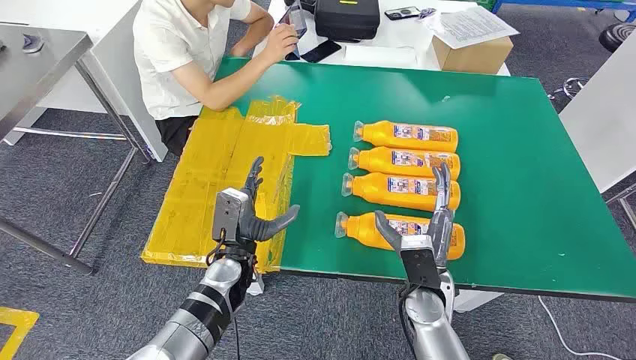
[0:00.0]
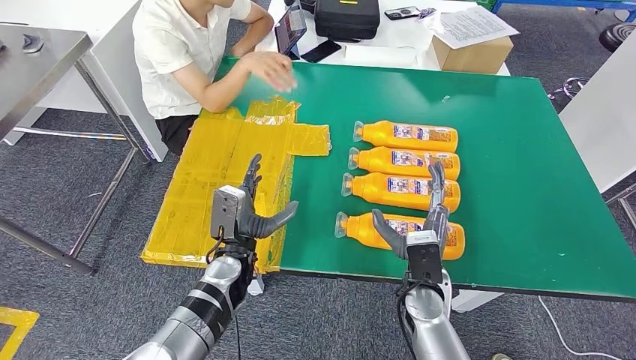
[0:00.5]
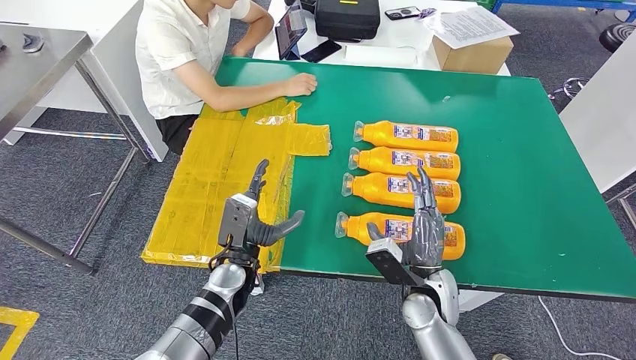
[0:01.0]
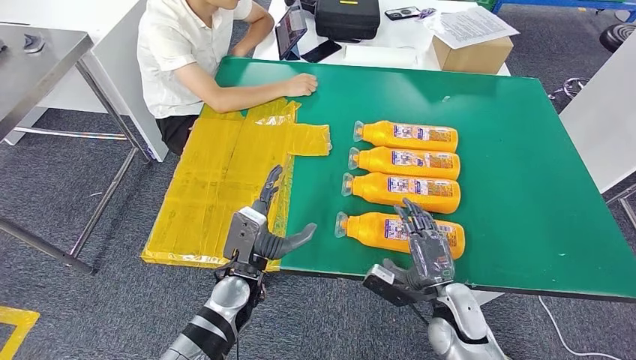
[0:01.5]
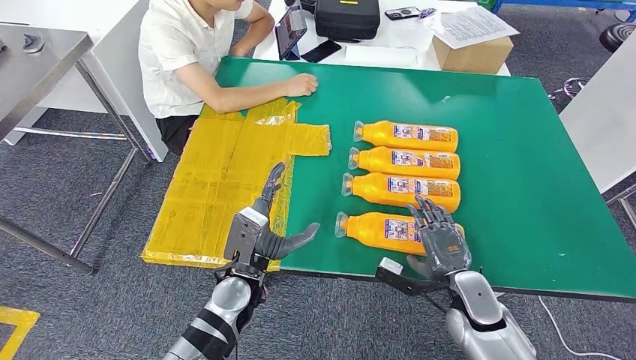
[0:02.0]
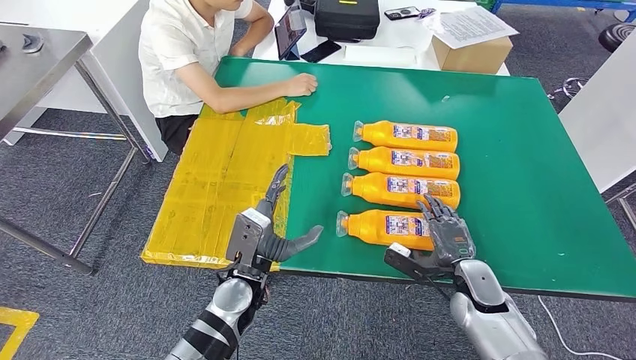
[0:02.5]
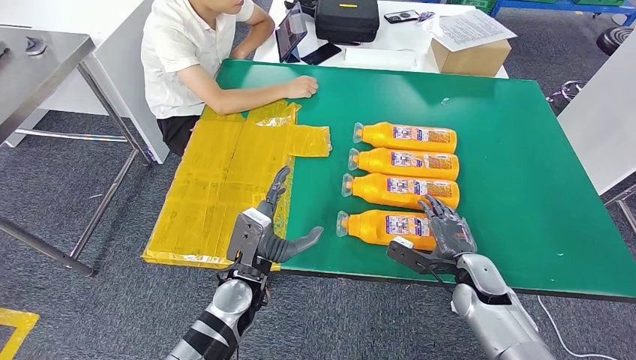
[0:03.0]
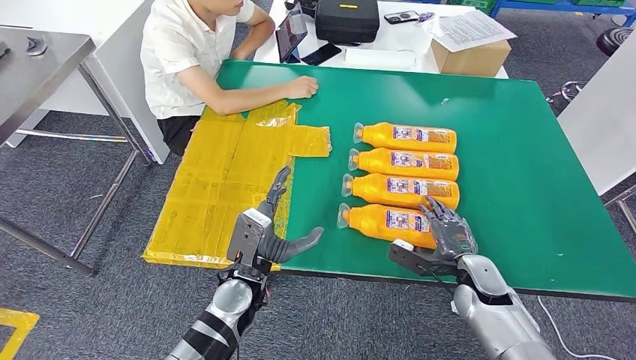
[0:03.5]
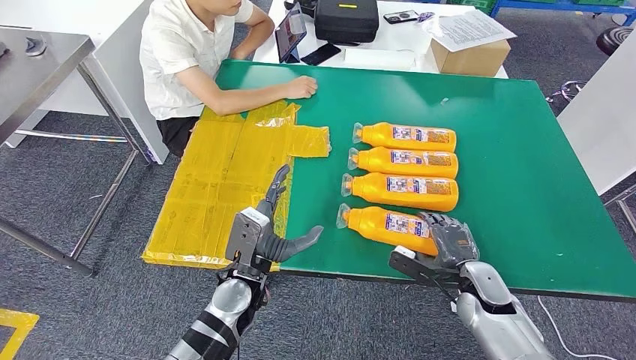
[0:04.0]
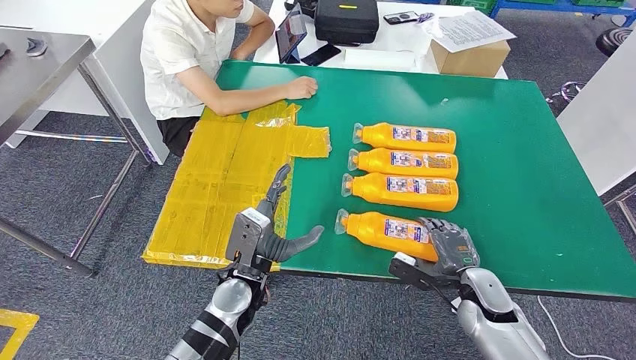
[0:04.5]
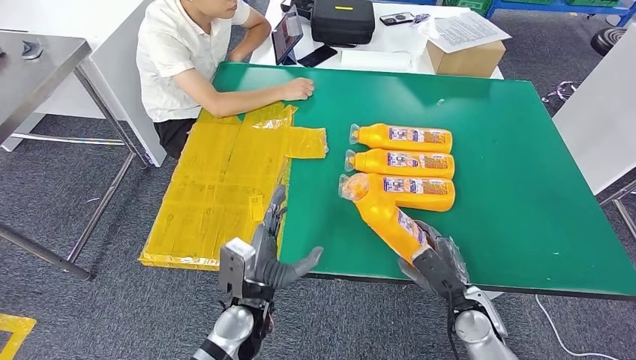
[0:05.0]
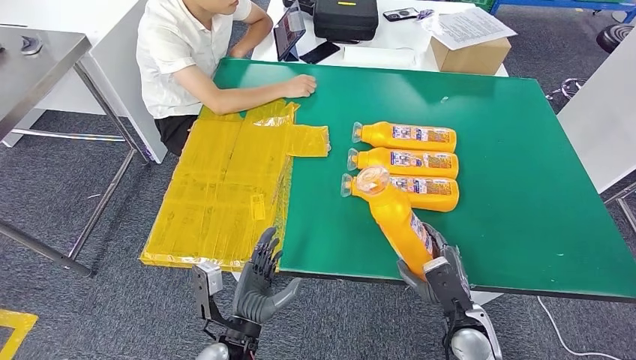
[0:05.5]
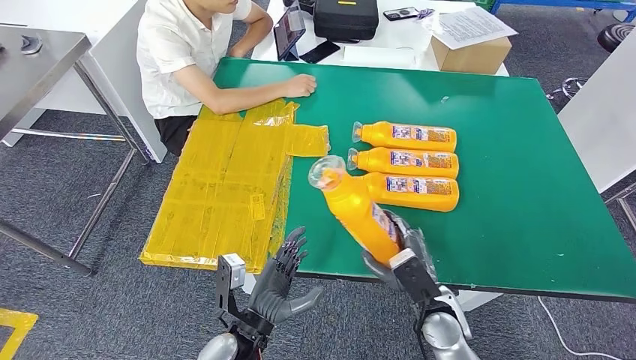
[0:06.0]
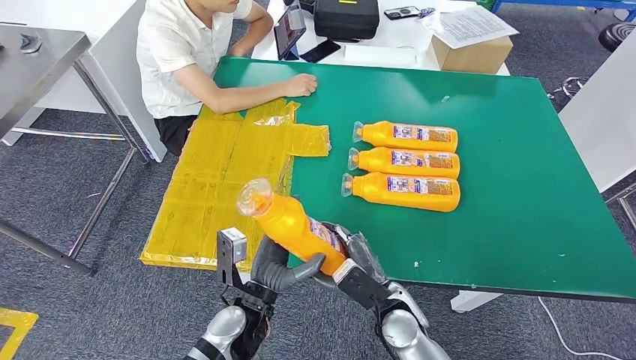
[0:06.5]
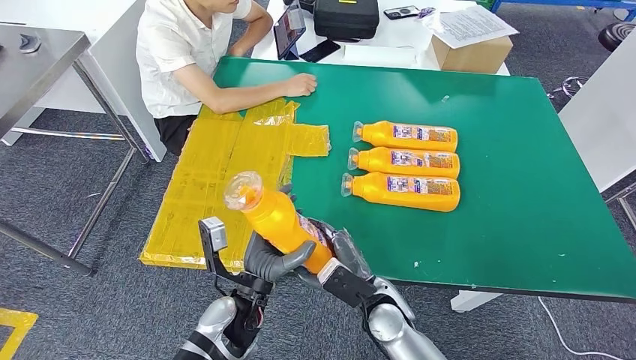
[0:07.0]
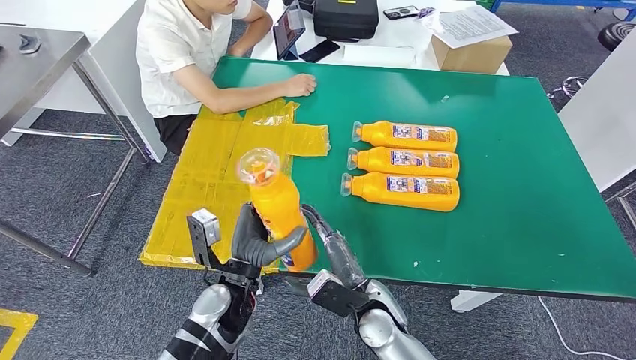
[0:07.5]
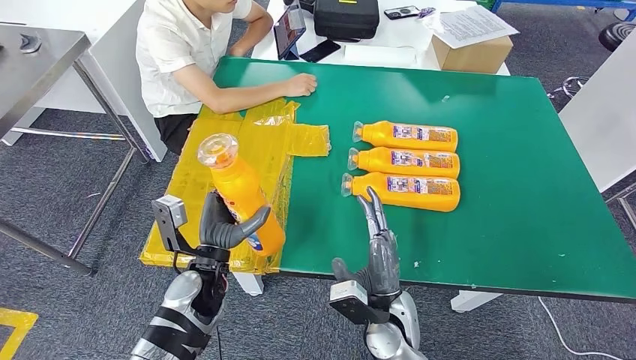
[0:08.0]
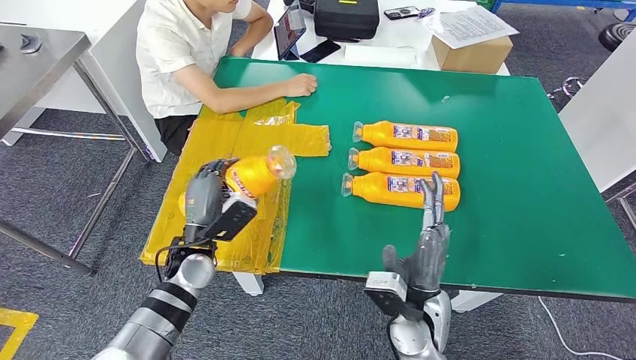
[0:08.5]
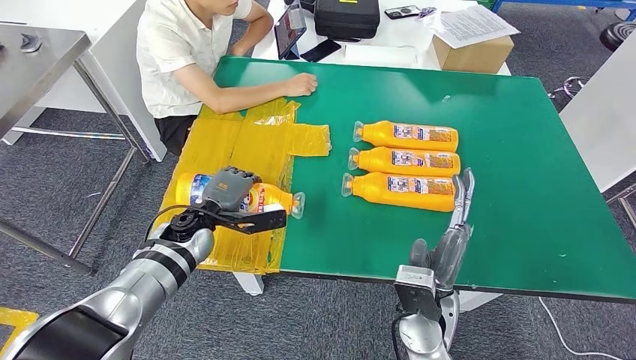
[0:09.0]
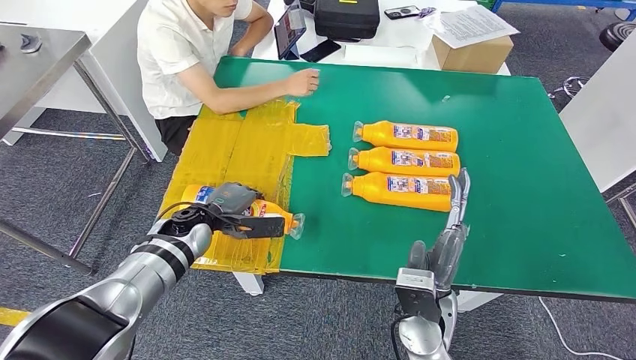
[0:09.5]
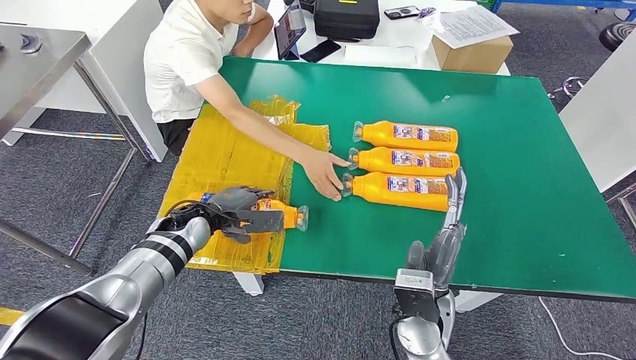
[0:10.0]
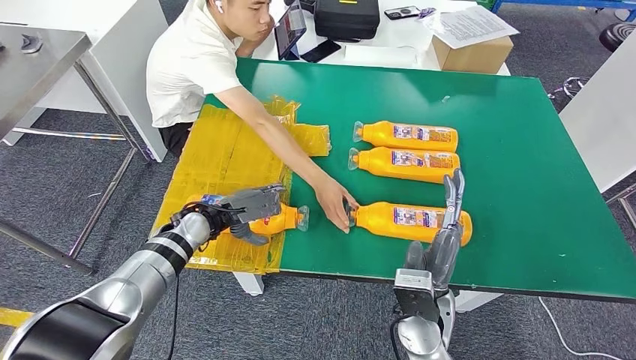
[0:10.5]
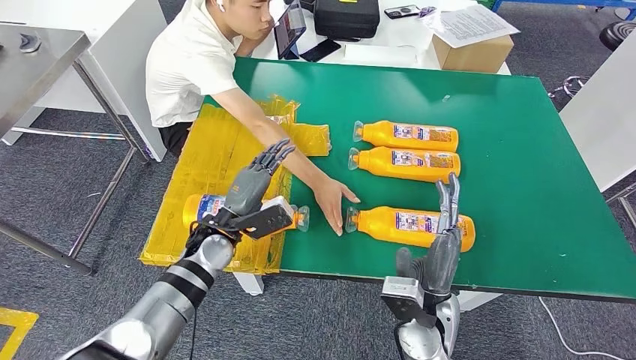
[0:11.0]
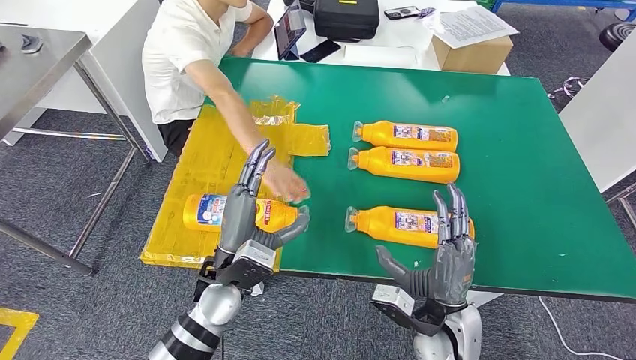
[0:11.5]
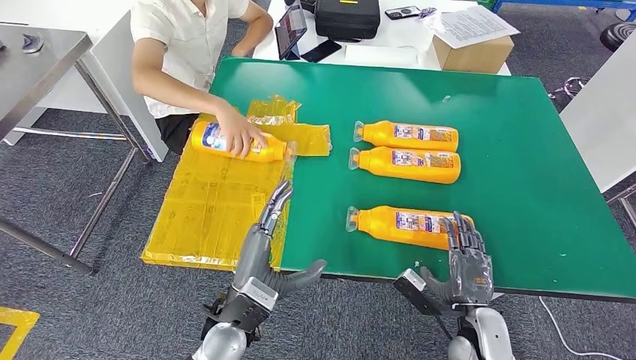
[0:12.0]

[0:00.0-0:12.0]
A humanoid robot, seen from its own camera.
Step, 0:00.0 to 0:05.5: Take the bottle from the table.
Step, 0:06.0 to 0:08.5: Flip the bottle to face forward.
0:04.0 to 0:06.0: The right hand is displaced to the left by approximately 10 cm; the left hand goes approximately 10 cm backward.
0:06.0 to 0:08.0: The right hand heads to the left, covering some 10 cm. Meanwhile the left hand travels forward and to the left by about 10 cm.

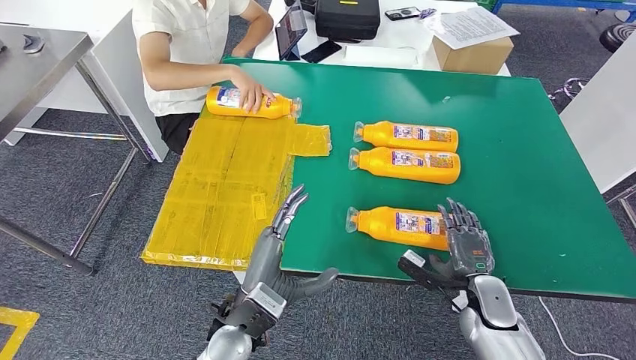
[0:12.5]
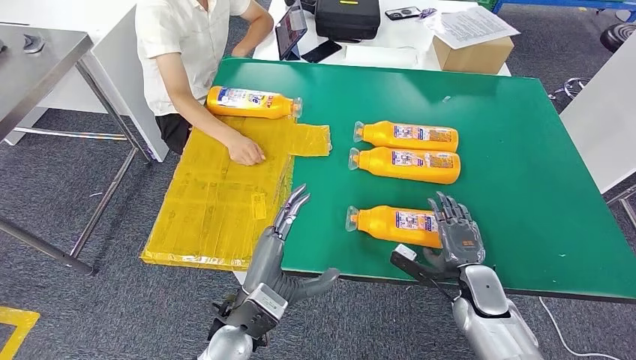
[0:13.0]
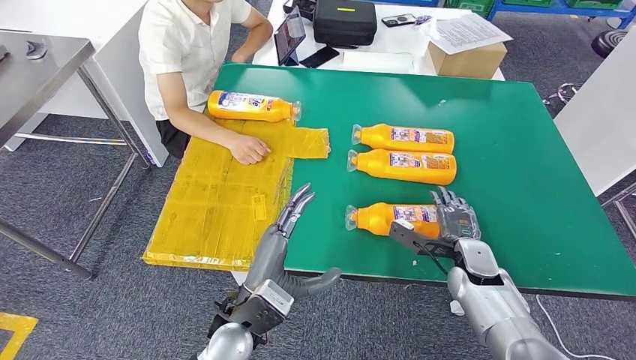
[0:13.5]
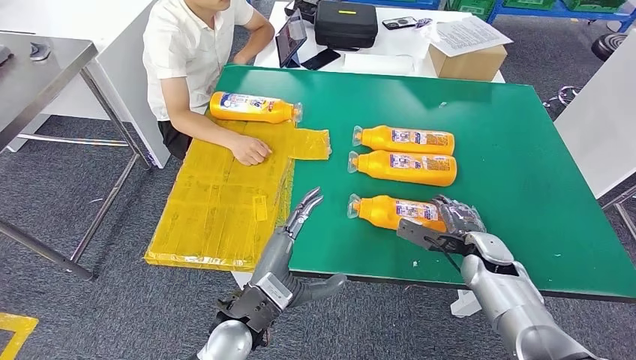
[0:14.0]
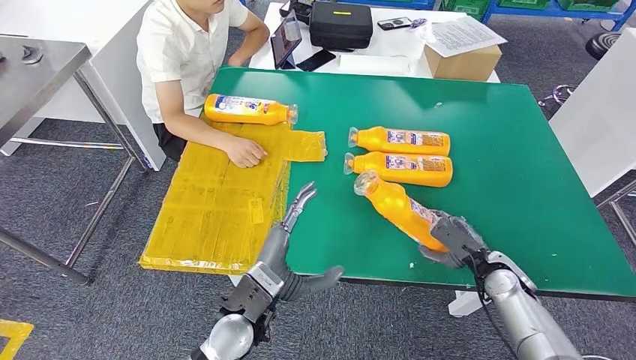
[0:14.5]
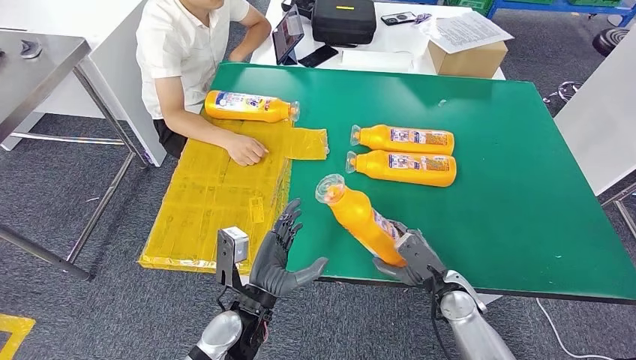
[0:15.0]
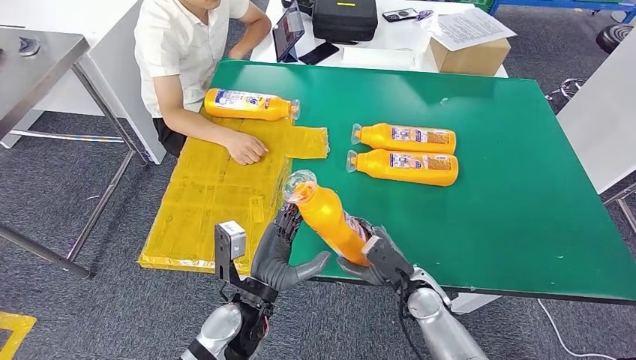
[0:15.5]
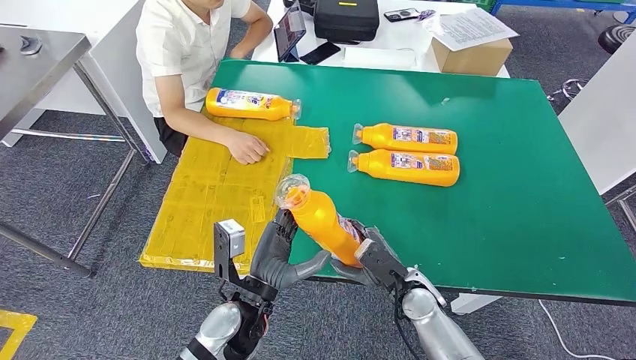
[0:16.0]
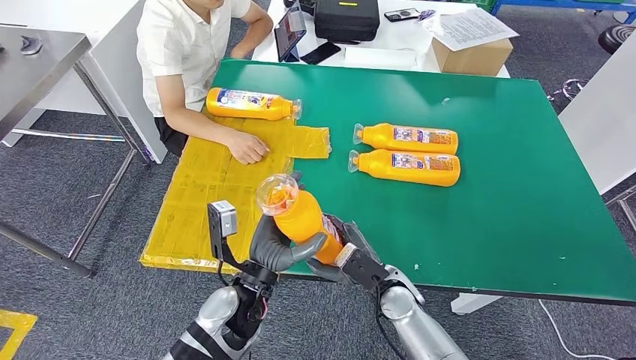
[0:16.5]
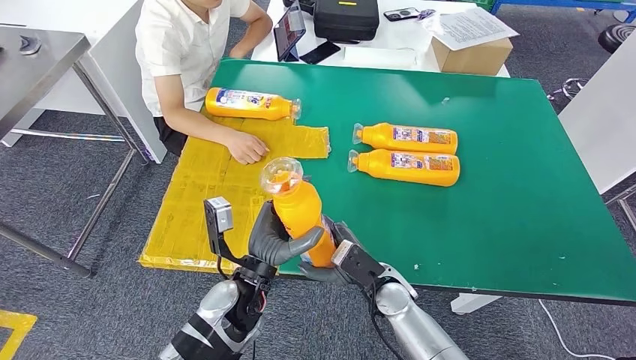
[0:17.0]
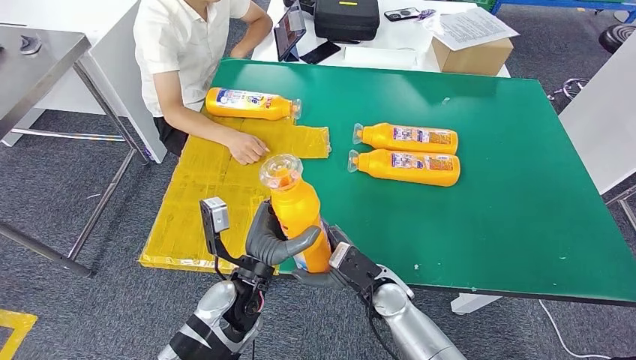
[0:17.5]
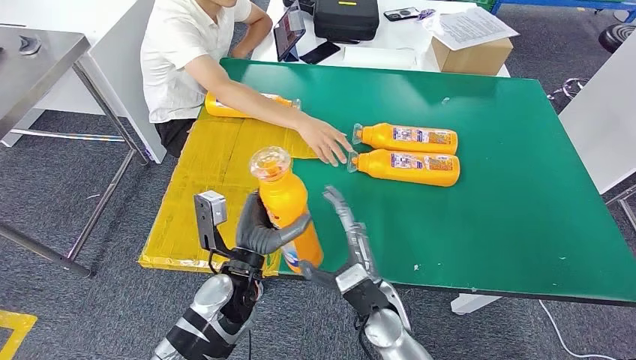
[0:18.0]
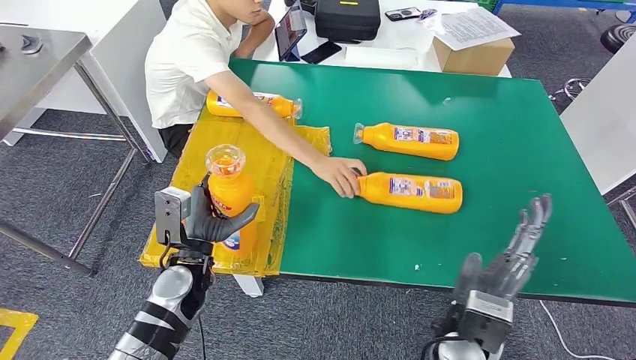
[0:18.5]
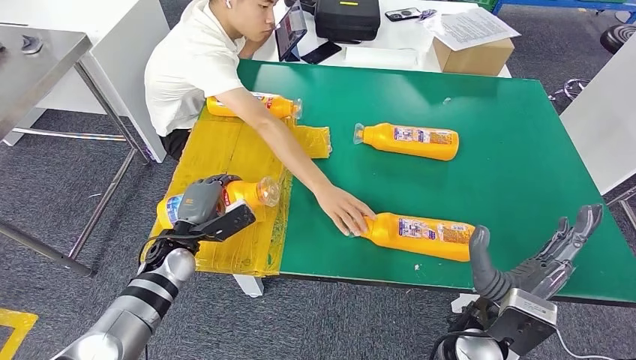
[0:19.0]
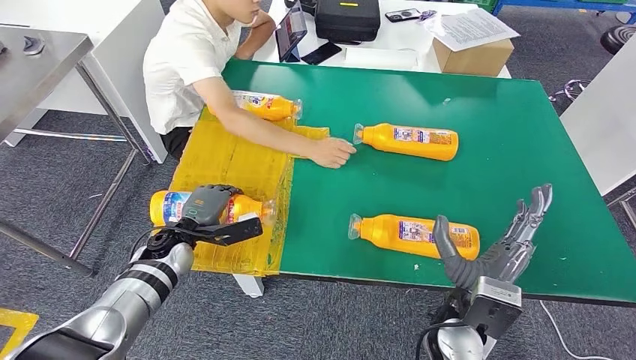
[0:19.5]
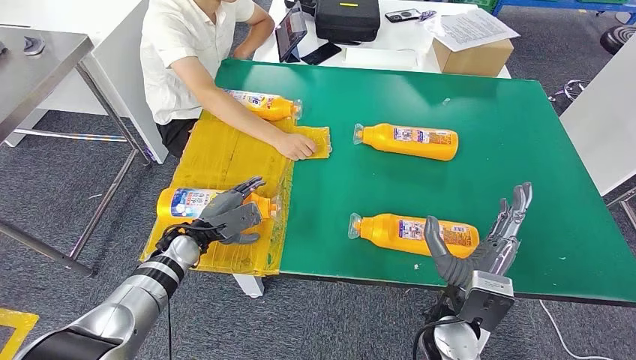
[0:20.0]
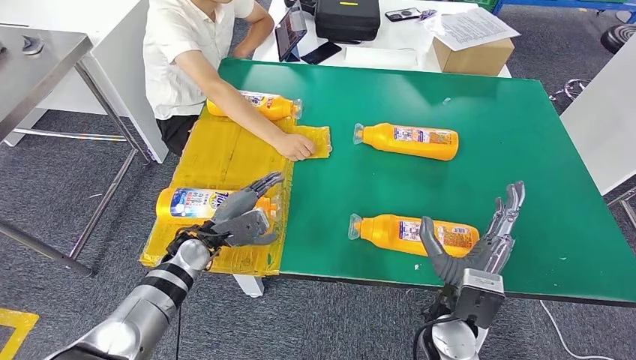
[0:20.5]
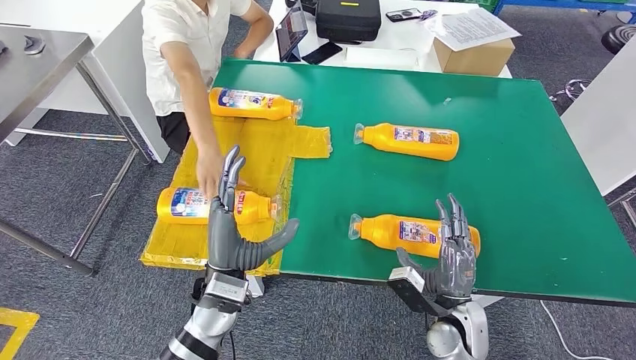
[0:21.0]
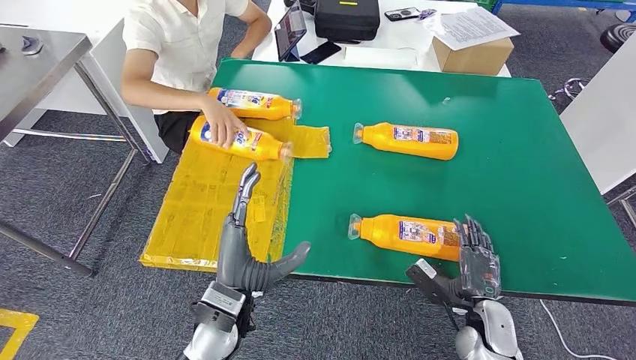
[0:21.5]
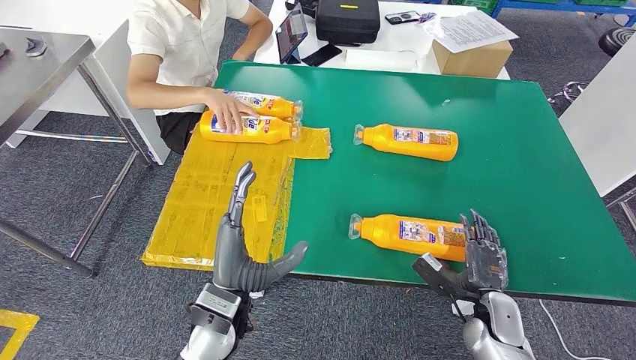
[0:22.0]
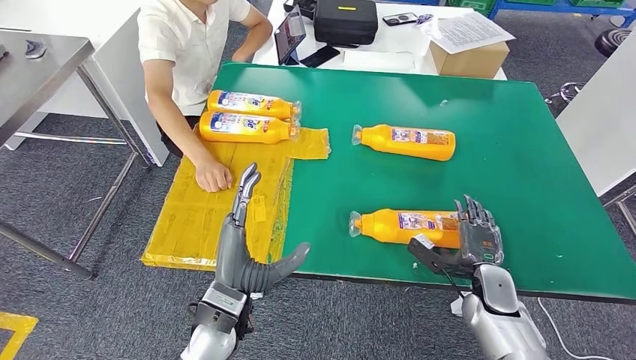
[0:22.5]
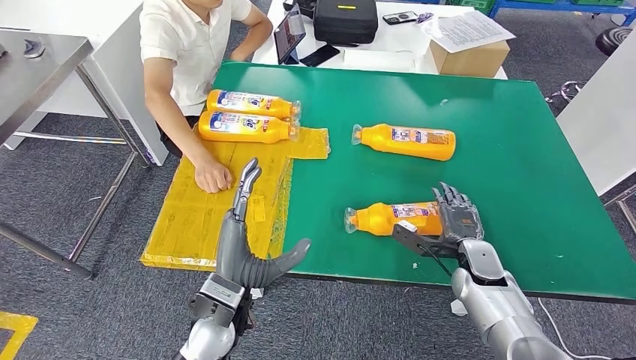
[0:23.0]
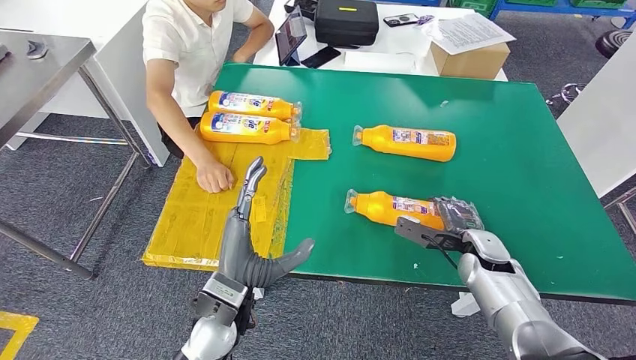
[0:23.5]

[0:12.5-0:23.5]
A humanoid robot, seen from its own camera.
Step, 0:12.5 to 0:14.5: Pick up the bottle from the table.
Step, 0:15.0 to 0:20.0: Flip the bottle to face forward.
0:16.0 to 0:18.0: The right hand shifts approximately 10 cm to the left, while the left hand moves some 5 cm.
